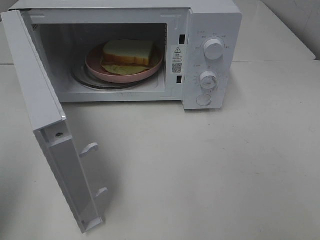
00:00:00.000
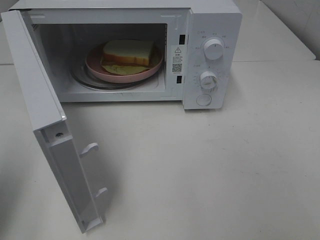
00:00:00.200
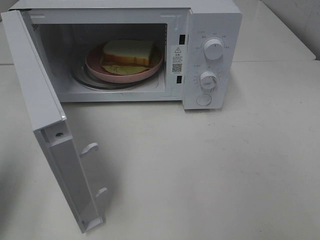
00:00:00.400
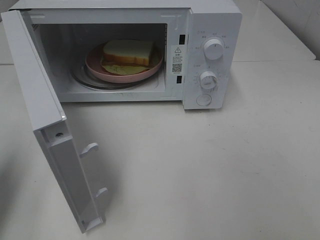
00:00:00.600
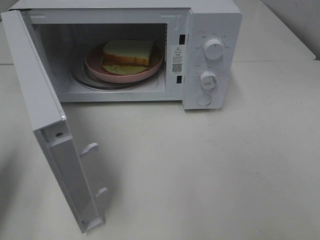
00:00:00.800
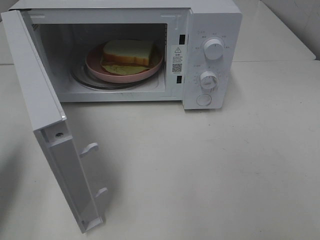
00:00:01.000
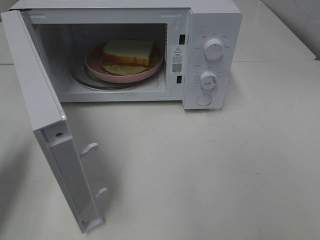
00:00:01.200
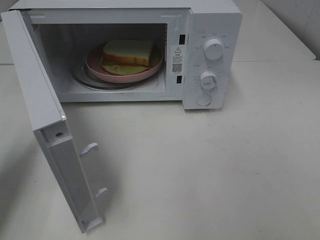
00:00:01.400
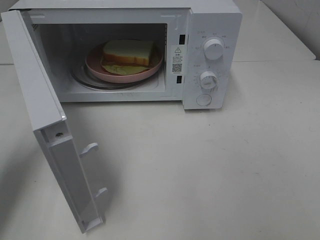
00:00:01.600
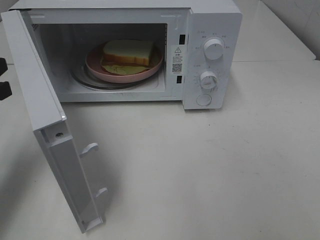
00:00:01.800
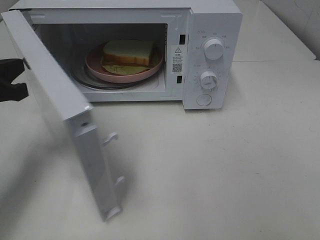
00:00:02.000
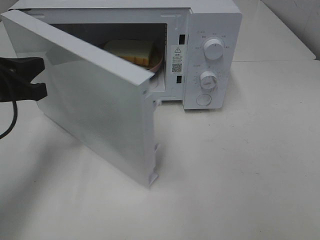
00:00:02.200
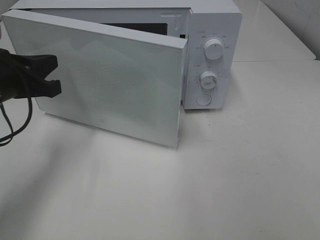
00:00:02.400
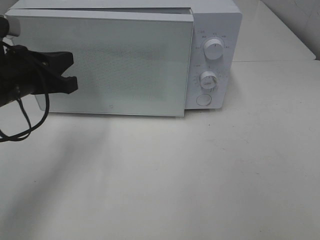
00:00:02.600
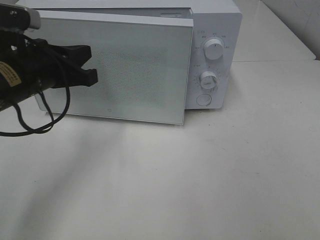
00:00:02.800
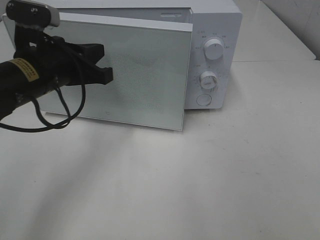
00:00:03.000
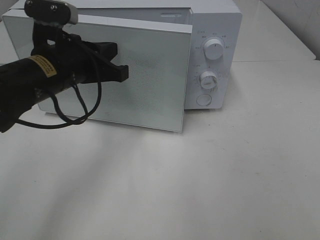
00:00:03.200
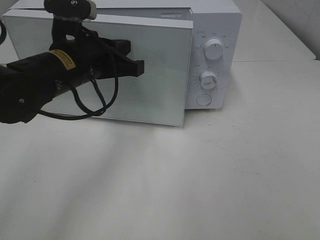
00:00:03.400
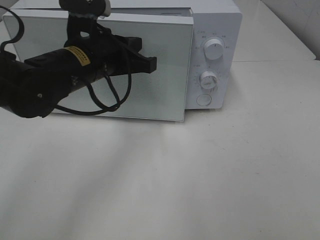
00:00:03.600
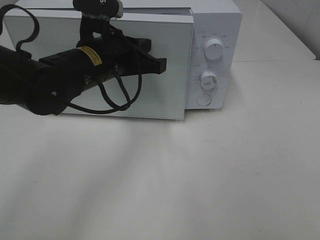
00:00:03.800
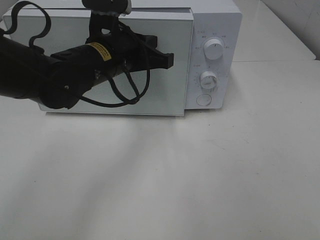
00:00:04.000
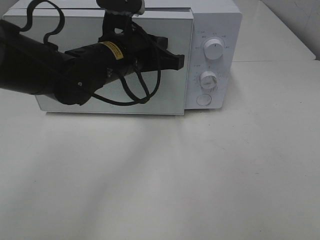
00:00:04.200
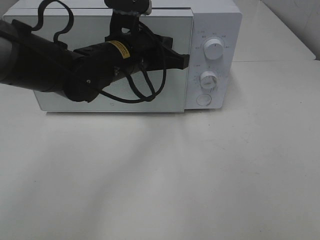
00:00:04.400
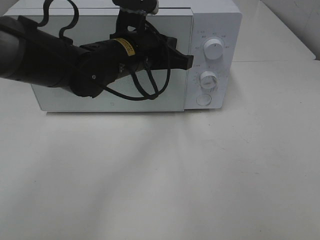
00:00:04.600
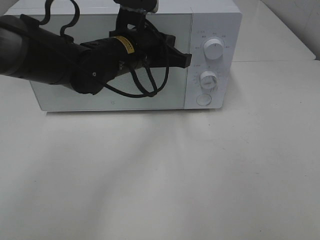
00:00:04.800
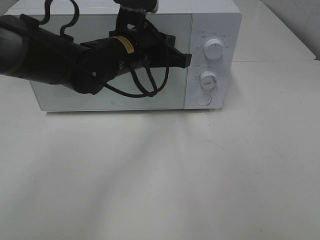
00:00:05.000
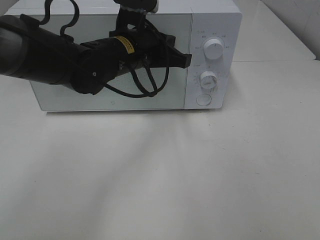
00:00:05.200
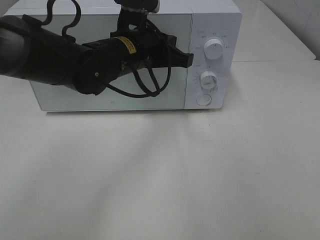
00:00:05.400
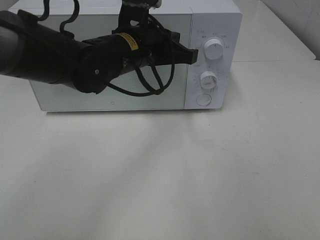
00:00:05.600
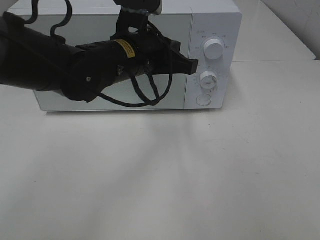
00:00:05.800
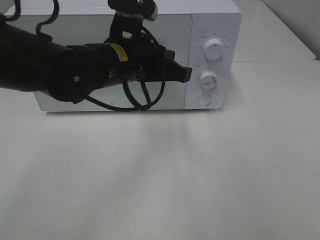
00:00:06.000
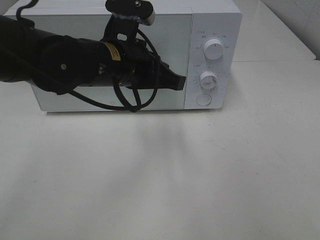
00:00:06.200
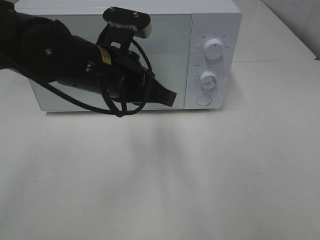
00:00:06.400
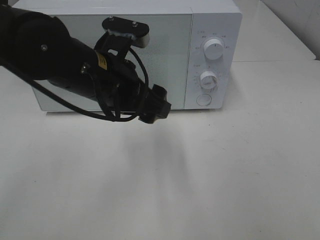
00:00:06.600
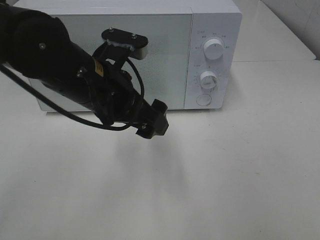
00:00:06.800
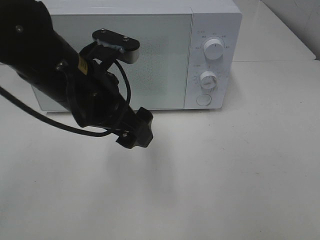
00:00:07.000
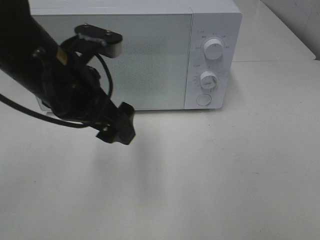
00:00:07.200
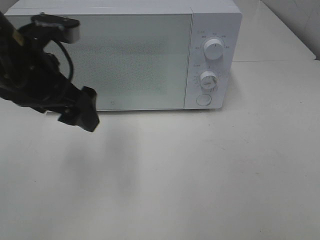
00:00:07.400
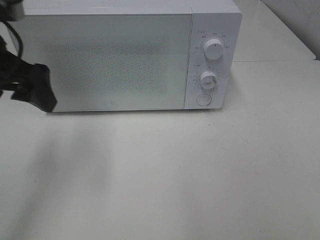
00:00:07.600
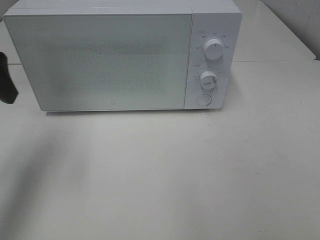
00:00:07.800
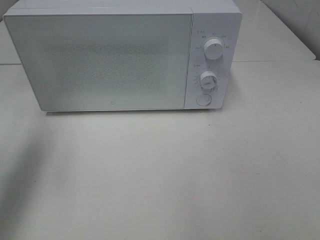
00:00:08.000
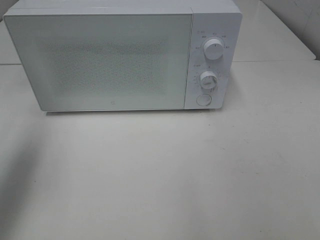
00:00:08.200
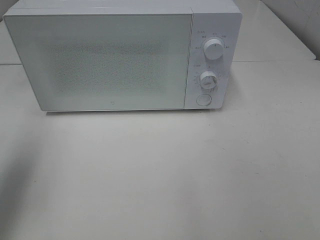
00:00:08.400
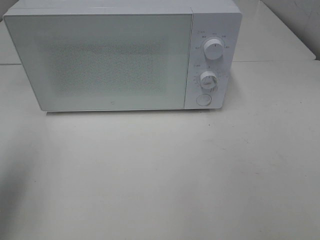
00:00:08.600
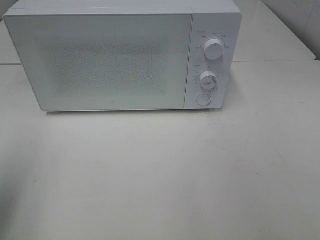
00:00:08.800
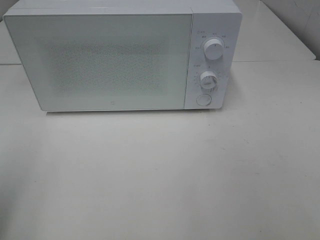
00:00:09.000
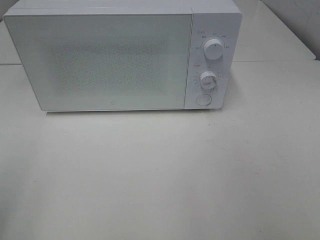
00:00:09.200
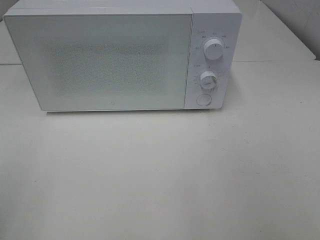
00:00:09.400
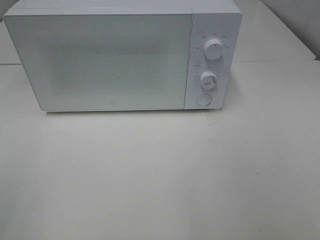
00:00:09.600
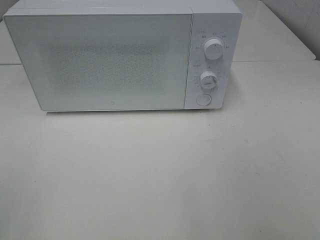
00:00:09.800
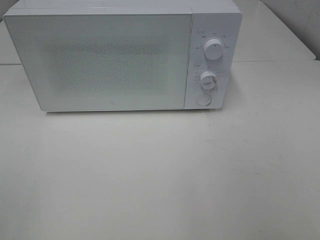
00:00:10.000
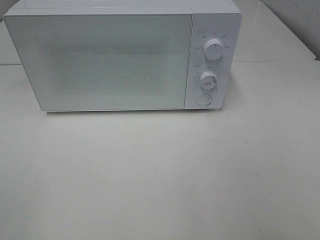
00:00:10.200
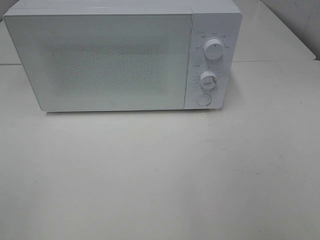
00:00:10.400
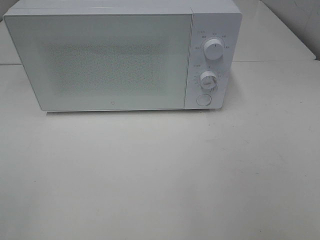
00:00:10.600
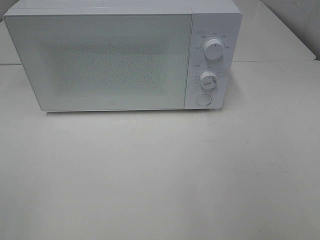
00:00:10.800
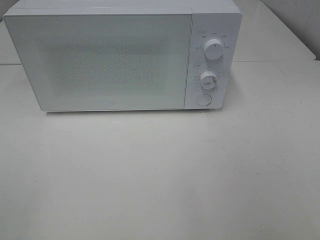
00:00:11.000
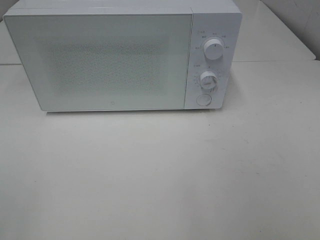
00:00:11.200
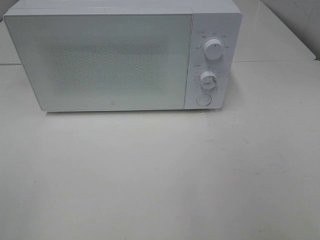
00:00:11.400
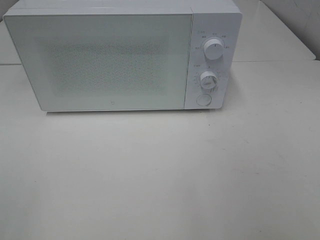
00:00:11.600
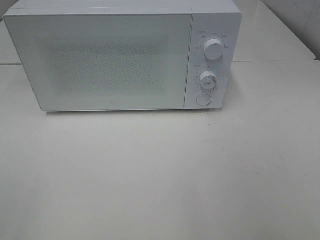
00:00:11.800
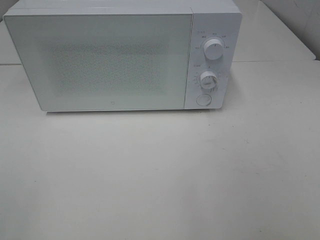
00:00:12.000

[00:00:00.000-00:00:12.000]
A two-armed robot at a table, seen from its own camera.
Task of the whole recording: Heat Sandwich.
Step, 00:00:00.000 to 00:00:06.000: Left hand: close the microwave door.
00:00:00.000 to 00:00:01.600: The left gripper goes some 15 cm forward and downward.
00:00:01.600 to 00:00:03.000: The left gripper is displaced to the right by roughly 15 cm.
00:00:03.000 to 00:00:04.400: The left gripper goes some 10 cm to the right and forward.
00:00:04.400 to 00:00:06.000: The grippers move only a little.
00:00:06.000 to 00:00:07.600: The left gripper travels to the left by roughly 15 cm, and opens up.
00:00:07.600 to 00:00:09.000: The left gripper shifts about 20 cm backward and to the left.
00:00:10.400 to 00:00:12.000: Both grippers stay about where they are.

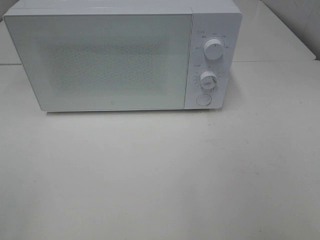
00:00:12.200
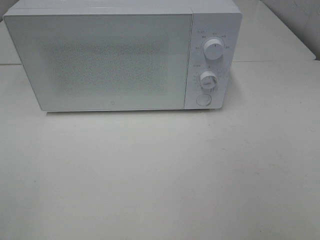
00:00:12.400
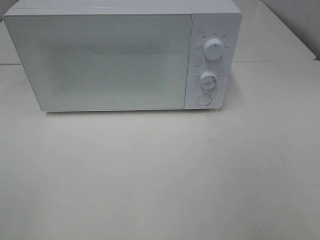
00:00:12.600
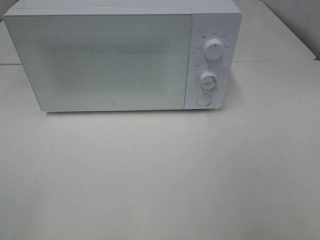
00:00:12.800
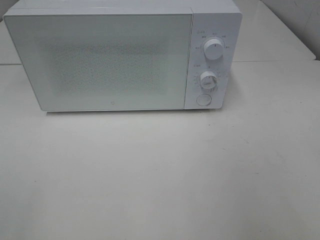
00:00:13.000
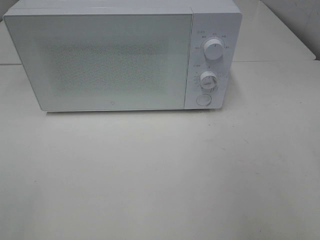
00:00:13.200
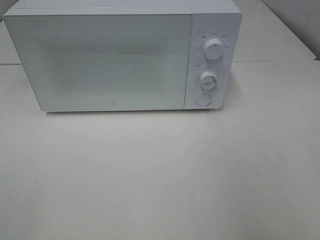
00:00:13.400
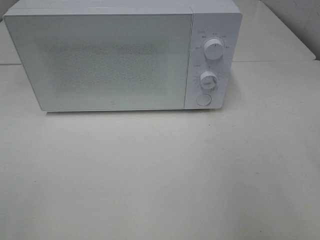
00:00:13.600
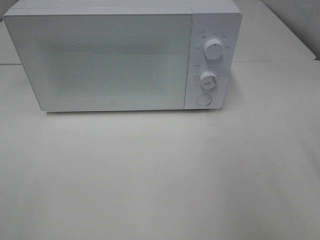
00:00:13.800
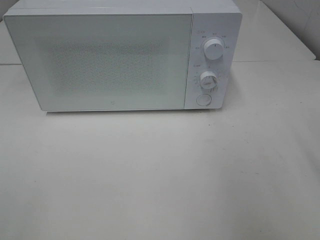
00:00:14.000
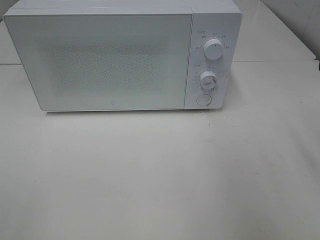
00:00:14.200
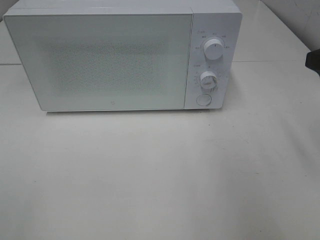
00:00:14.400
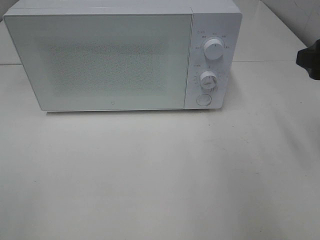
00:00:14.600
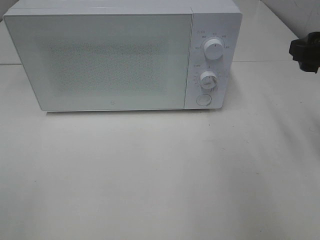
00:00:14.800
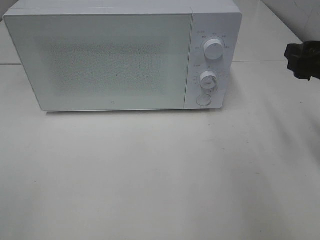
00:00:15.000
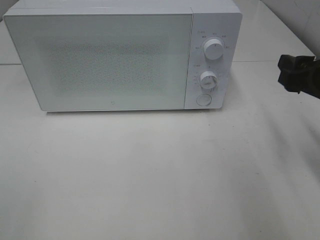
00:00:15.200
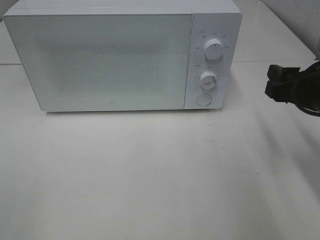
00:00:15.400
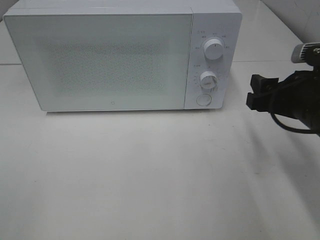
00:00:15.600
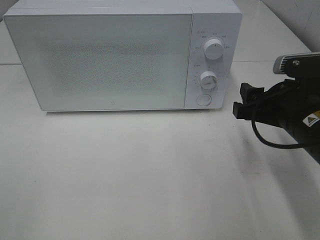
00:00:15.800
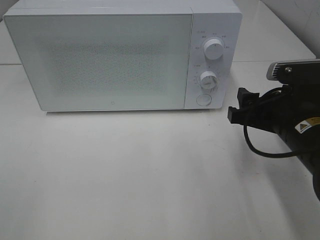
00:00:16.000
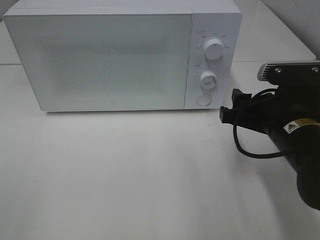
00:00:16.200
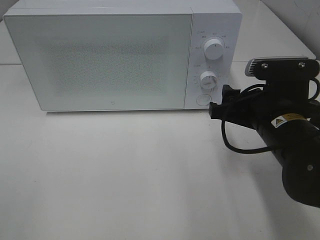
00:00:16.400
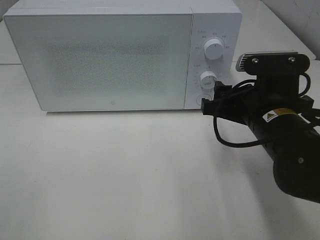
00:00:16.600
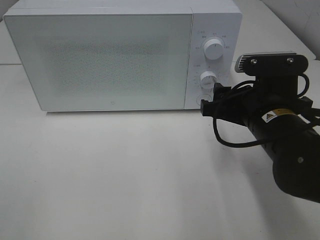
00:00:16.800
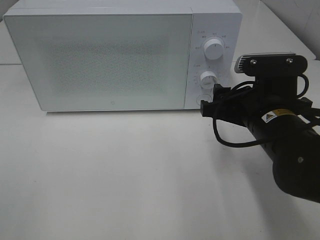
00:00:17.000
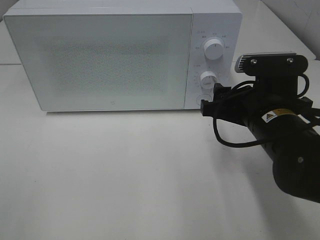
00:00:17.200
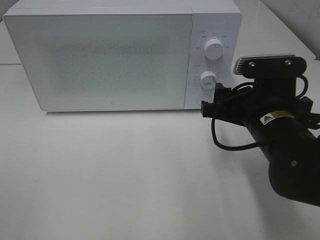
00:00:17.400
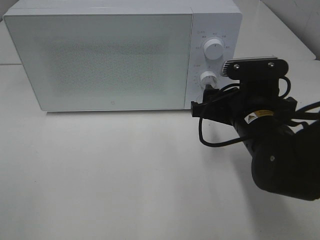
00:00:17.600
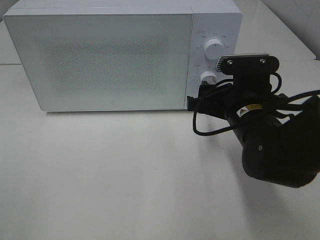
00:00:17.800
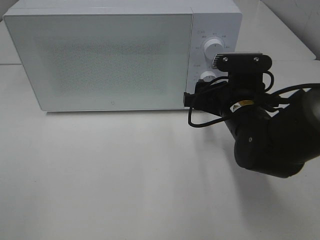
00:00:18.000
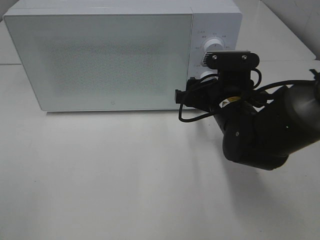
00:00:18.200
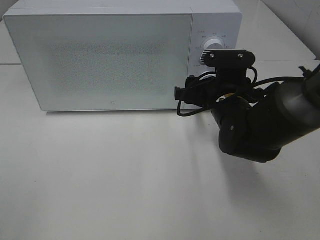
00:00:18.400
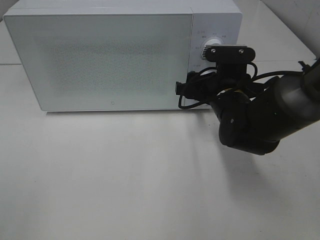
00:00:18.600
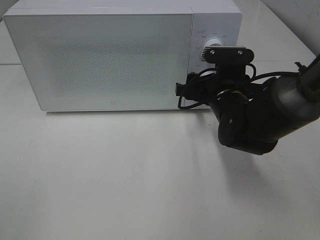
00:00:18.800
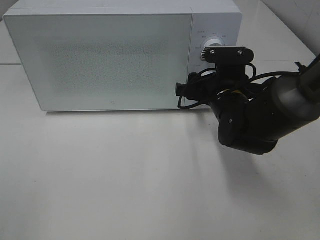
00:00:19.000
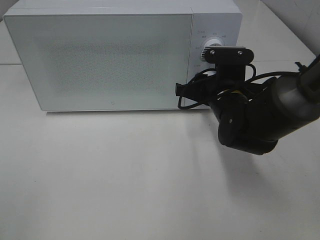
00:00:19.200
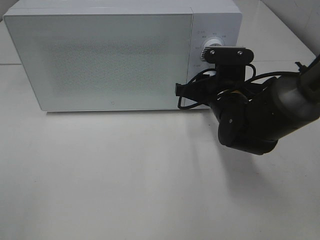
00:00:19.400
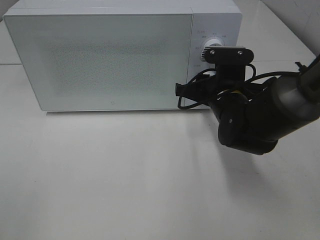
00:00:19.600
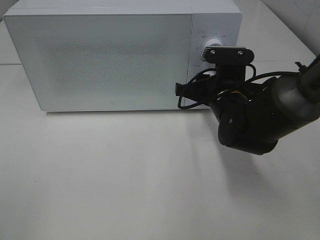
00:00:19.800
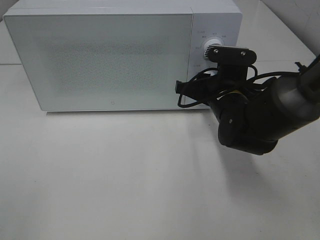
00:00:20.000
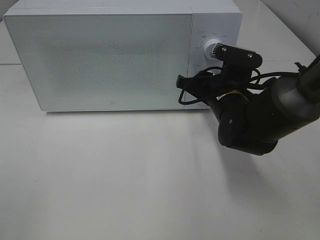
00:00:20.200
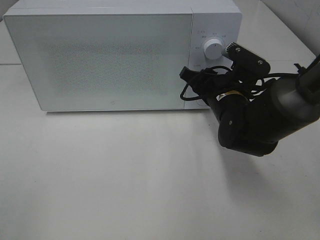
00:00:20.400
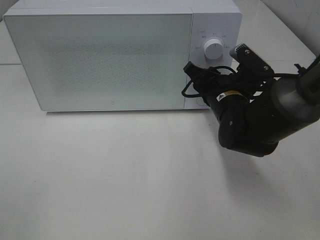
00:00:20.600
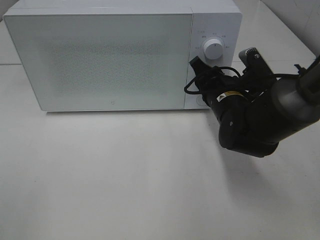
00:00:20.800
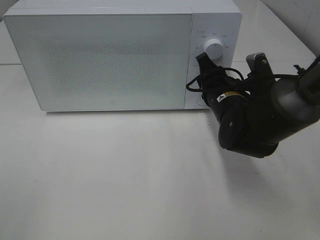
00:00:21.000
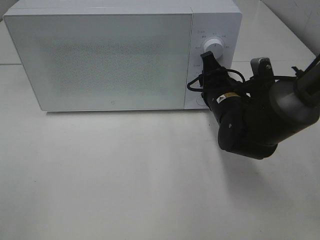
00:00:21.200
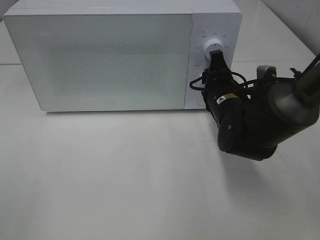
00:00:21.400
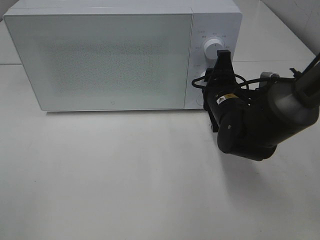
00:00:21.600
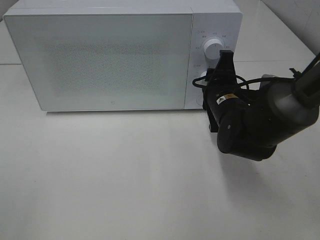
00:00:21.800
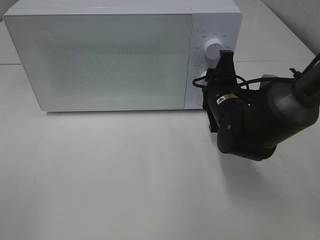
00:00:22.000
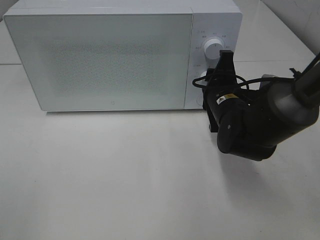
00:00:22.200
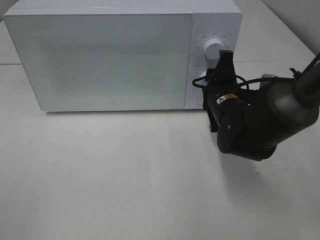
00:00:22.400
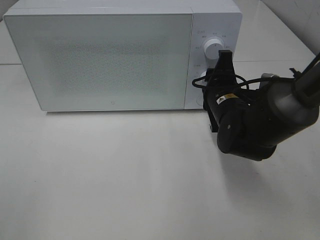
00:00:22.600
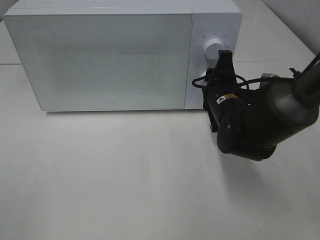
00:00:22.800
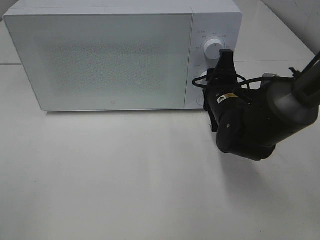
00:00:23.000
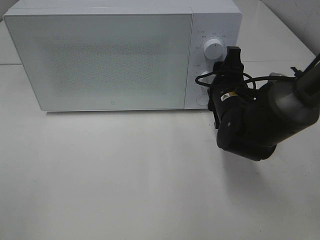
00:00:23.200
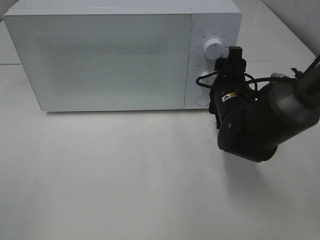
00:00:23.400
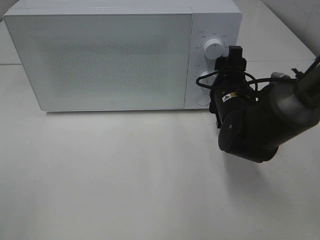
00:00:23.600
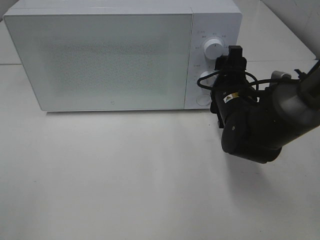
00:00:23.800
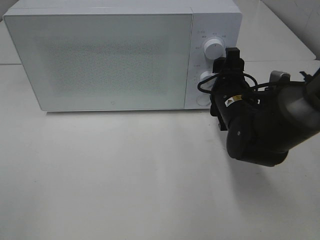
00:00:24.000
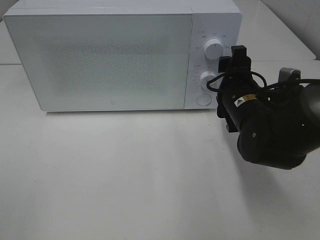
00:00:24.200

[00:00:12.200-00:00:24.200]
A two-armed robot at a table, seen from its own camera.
Task of the whole recording: Heat Sandwich.
Step, 00:00:12.200 to 00:00:24.000: Right hand: twist timer button.
00:00:13.800 to 00:00:15.200: The right gripper moves downward and forward, roughly 10 cm.
00:00:15.200 to 00:00:16.600: The right gripper shifts about 10 cm to the left.
00:00:16.600 to 00:00:18.200: The right gripper is displaced forward by roughly 5 cm.
00:00:18.200 to 00:00:19.800: The right gripper closes.
00:00:22.600 to 00:00:24.200: The right gripper opens up.
